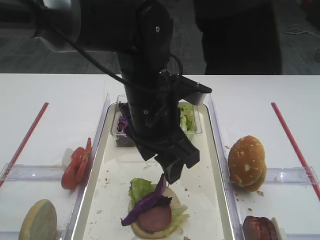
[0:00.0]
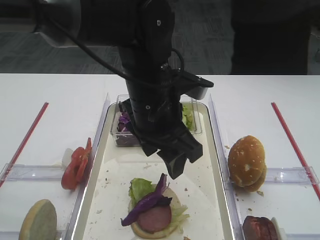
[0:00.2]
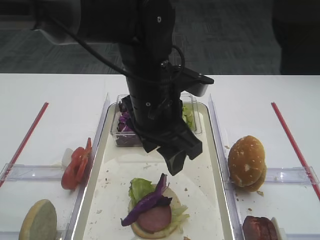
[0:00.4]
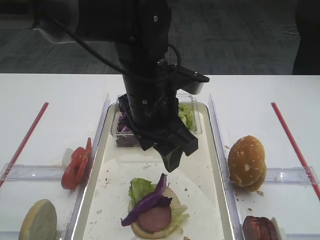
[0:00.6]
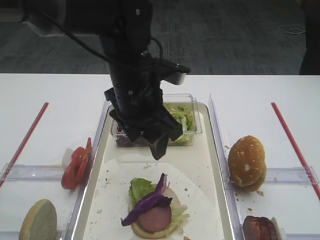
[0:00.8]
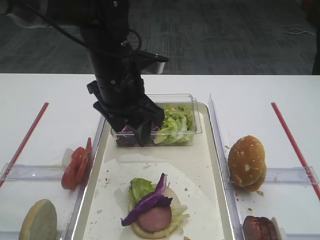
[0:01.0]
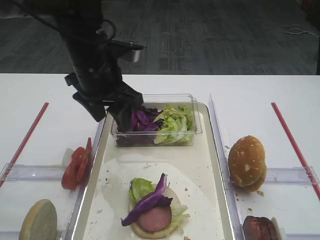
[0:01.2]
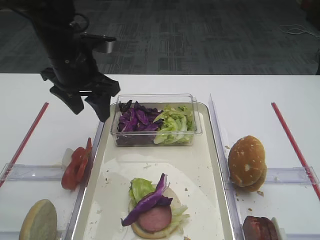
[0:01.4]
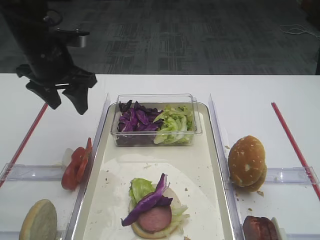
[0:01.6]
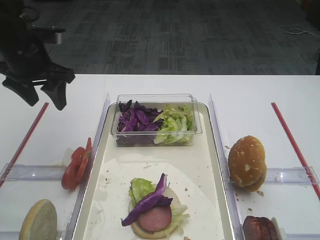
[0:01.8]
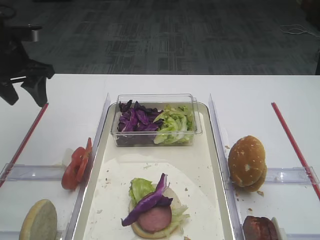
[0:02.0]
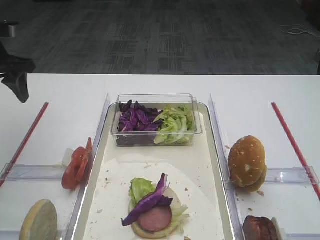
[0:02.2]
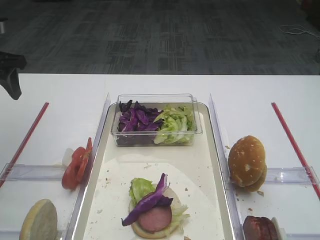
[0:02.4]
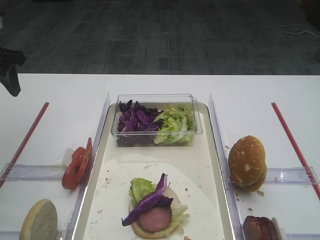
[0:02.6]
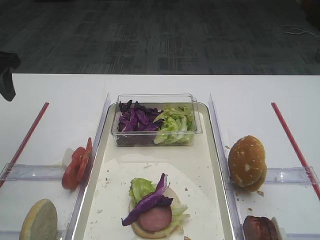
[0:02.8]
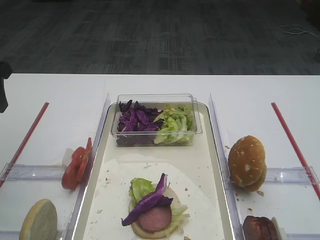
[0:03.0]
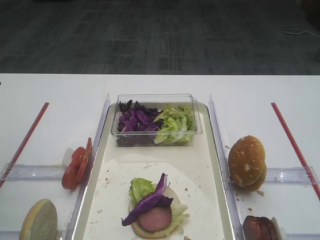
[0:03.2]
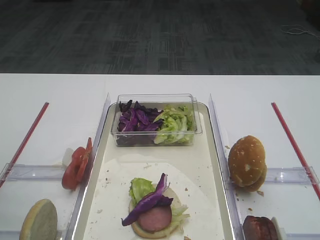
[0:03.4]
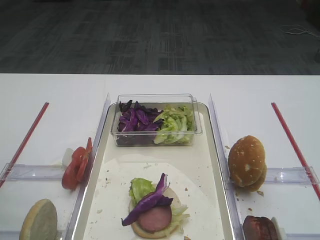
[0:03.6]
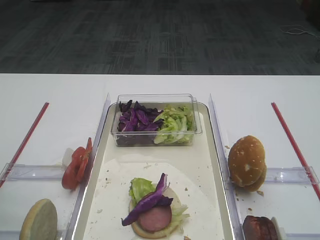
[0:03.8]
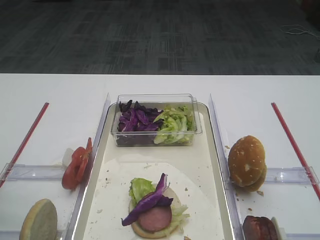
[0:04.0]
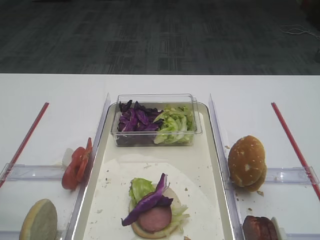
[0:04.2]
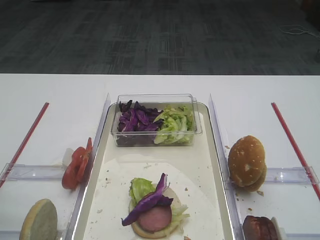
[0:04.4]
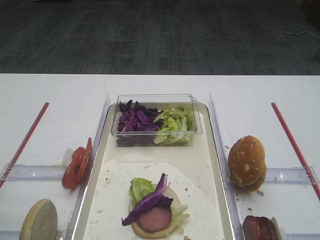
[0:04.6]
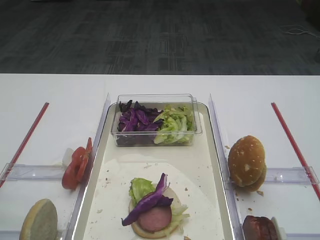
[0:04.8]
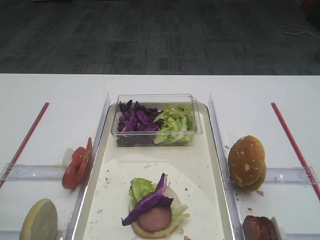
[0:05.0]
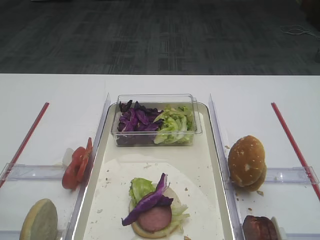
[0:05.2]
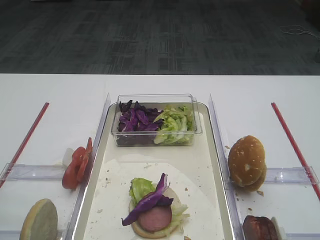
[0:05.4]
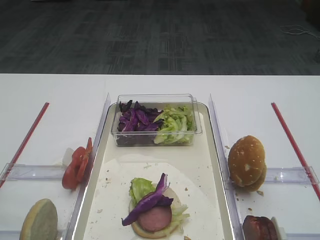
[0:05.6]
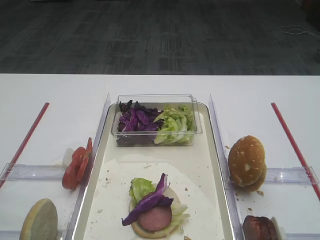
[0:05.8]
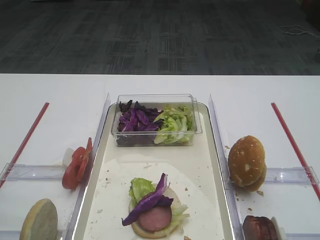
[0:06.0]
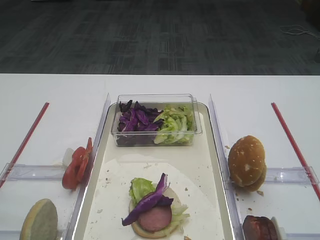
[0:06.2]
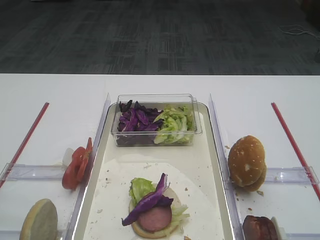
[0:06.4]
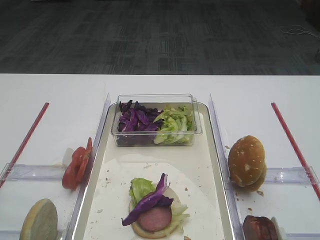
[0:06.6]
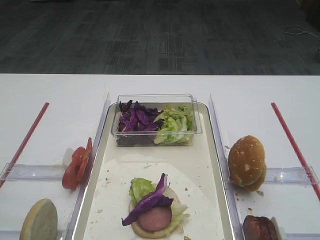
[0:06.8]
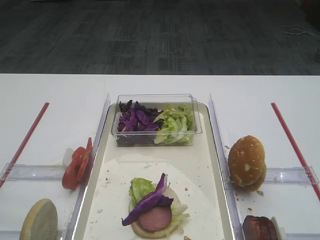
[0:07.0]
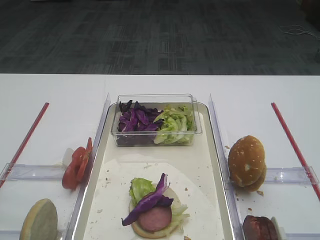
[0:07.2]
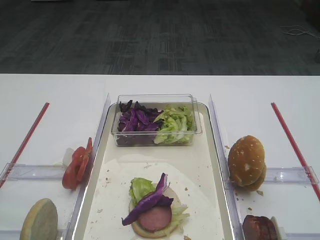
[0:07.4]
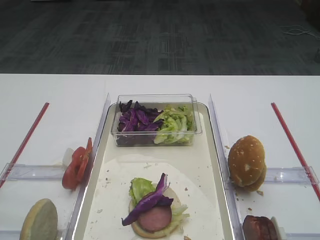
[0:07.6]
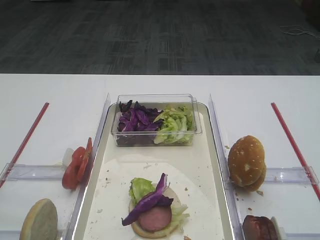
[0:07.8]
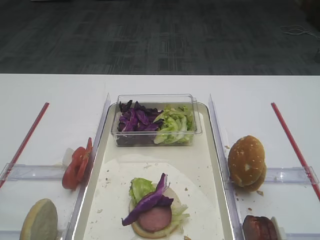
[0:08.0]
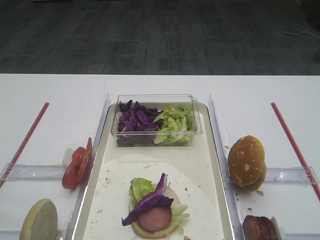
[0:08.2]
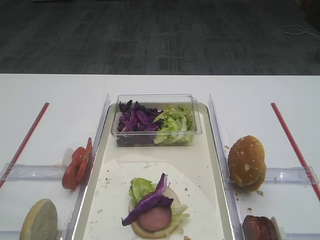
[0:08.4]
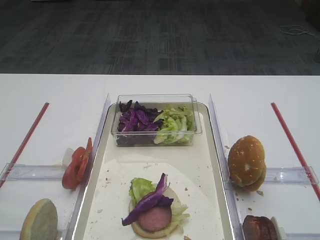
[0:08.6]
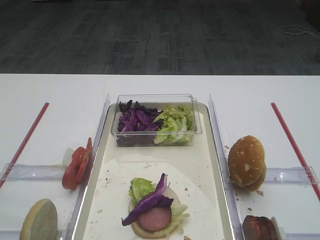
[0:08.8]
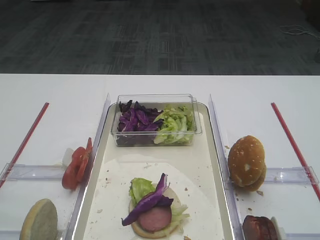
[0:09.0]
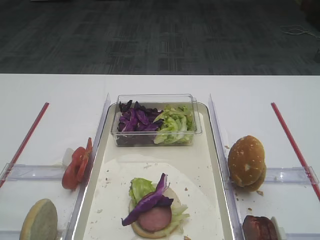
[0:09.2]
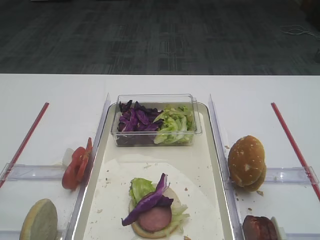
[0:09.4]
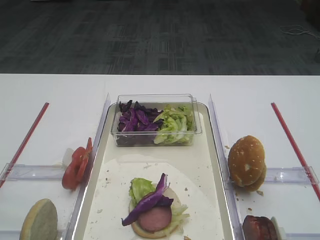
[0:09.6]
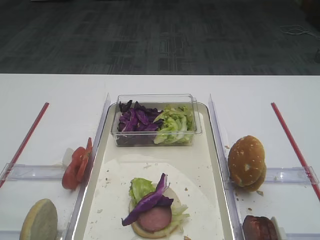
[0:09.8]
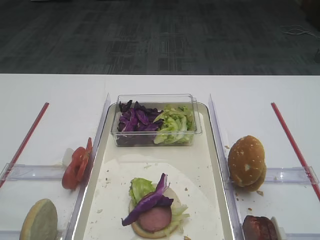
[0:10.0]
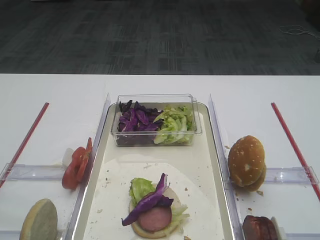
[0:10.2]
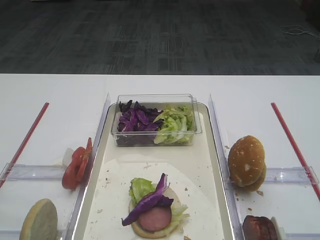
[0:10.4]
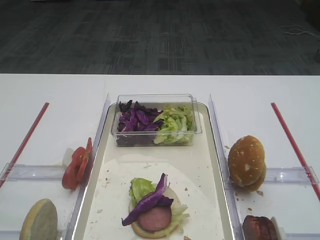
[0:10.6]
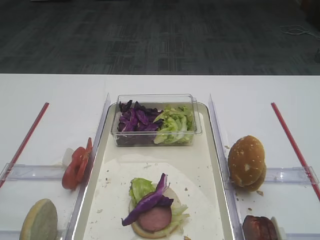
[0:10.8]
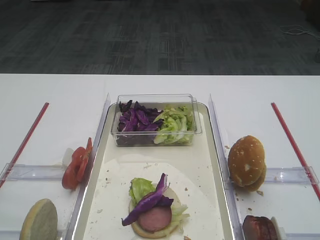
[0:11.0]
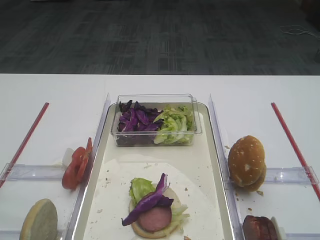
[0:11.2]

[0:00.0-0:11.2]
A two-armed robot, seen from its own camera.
0:00.0 to 0:01.6: The left gripper moves to the left and forward, approximately 20 cm.
0:01.6 to 0:03.2: The left gripper travels to the left and backward by some 15 cm.
0:08.0 to 0:11.2: Both grippers stay put.

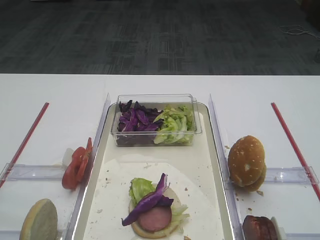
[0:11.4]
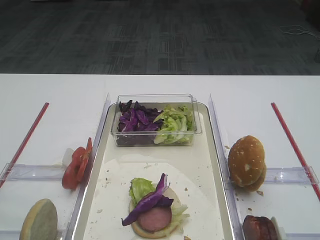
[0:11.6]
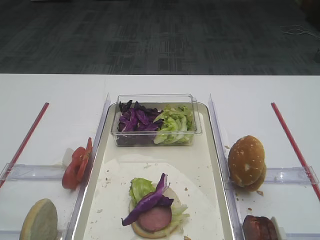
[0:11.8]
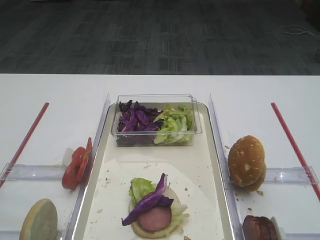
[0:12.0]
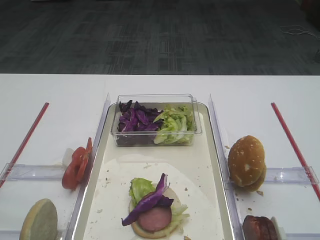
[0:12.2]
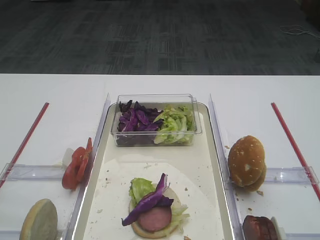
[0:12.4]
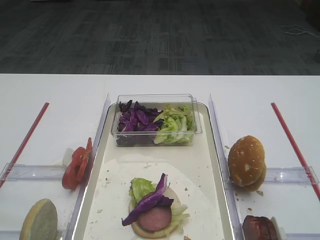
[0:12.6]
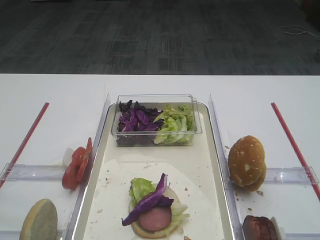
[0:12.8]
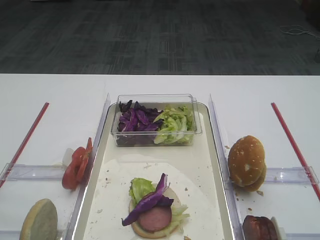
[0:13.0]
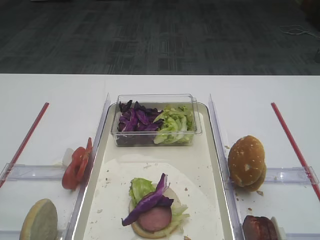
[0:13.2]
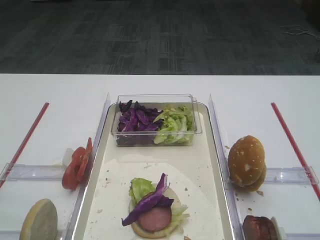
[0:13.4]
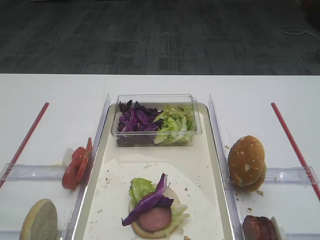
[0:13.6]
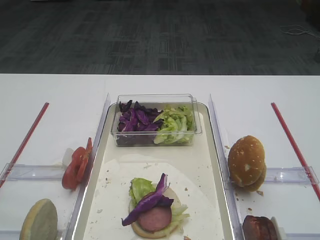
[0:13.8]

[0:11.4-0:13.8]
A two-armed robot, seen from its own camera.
0:11.4 to 0:13.8: The two grippers keep their place.

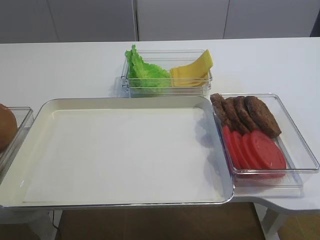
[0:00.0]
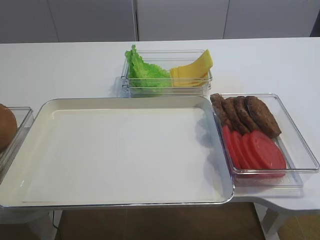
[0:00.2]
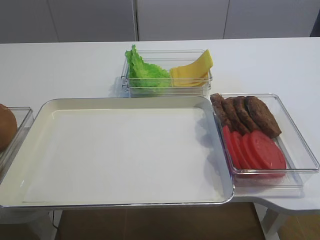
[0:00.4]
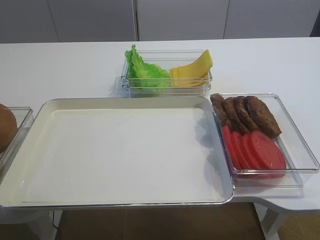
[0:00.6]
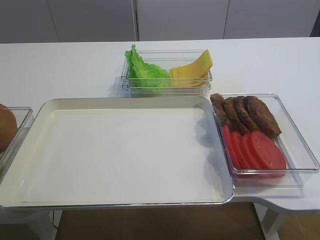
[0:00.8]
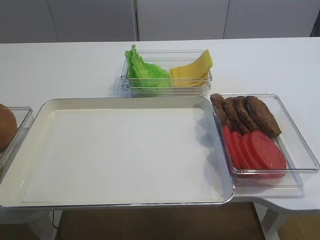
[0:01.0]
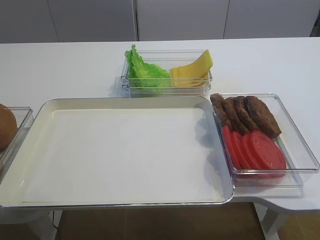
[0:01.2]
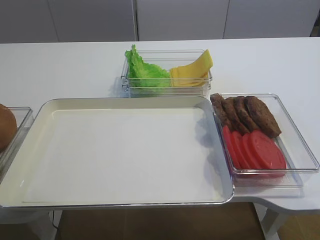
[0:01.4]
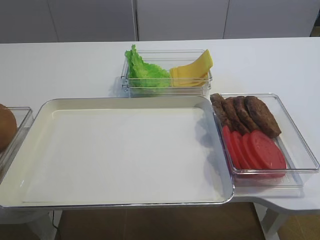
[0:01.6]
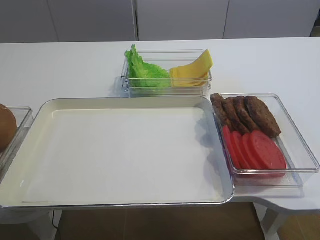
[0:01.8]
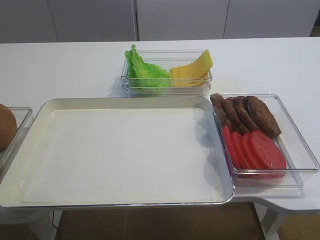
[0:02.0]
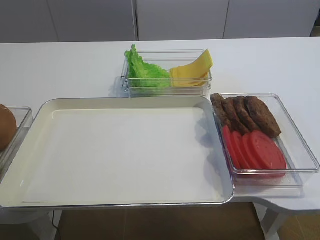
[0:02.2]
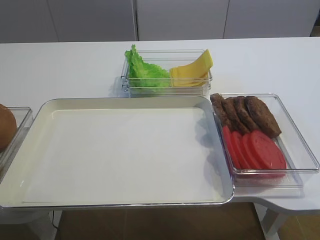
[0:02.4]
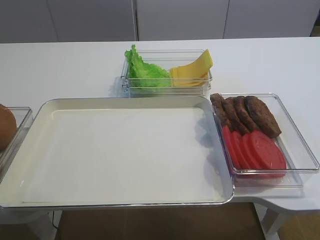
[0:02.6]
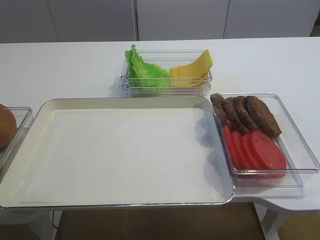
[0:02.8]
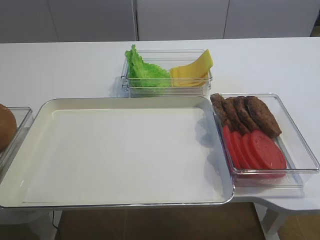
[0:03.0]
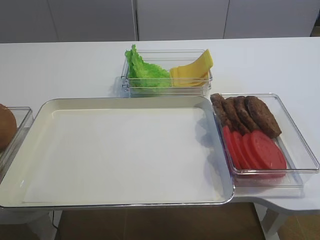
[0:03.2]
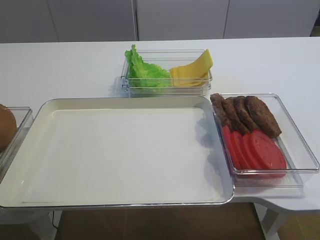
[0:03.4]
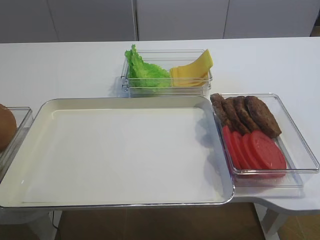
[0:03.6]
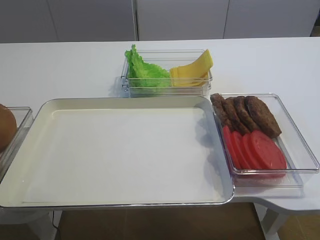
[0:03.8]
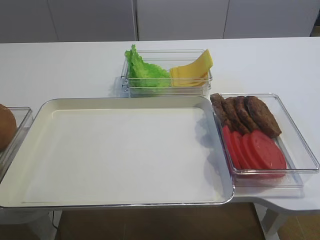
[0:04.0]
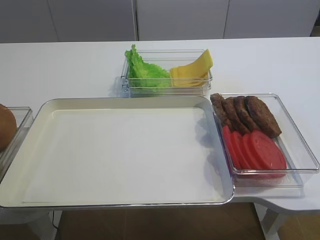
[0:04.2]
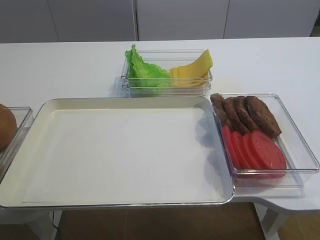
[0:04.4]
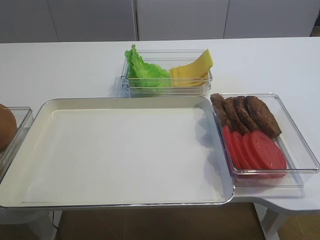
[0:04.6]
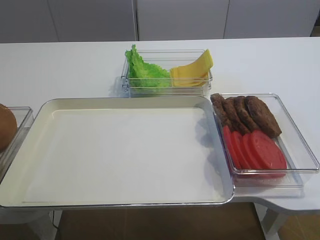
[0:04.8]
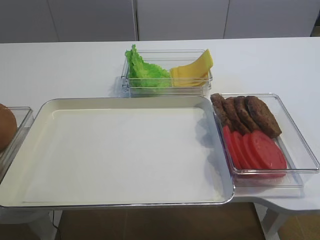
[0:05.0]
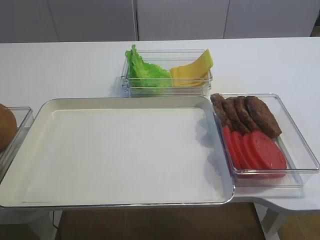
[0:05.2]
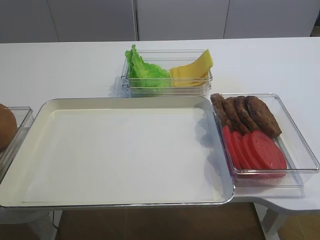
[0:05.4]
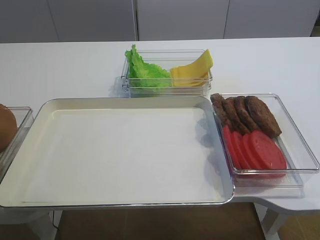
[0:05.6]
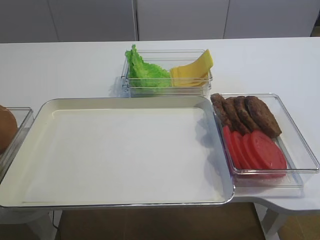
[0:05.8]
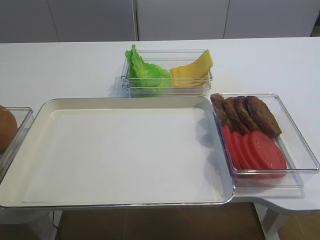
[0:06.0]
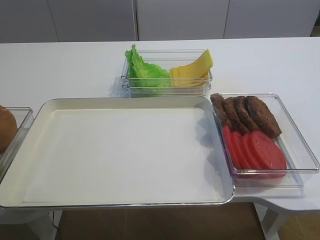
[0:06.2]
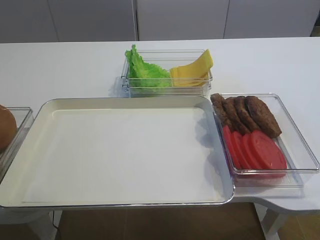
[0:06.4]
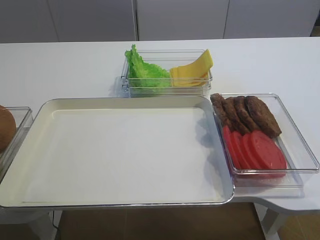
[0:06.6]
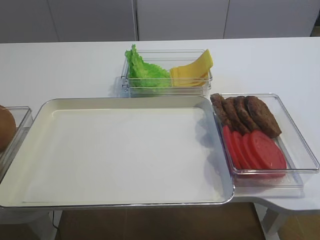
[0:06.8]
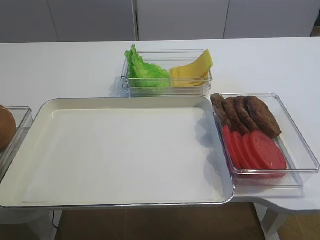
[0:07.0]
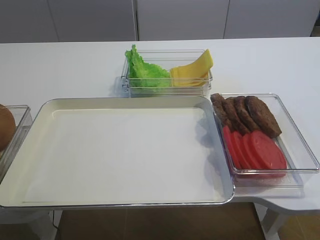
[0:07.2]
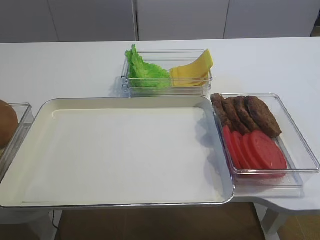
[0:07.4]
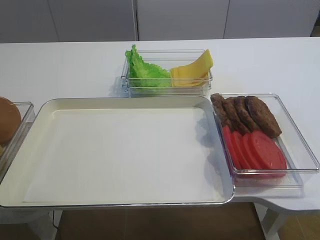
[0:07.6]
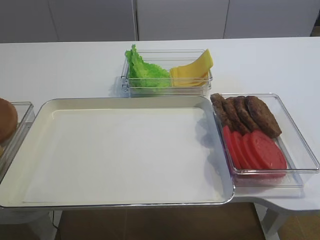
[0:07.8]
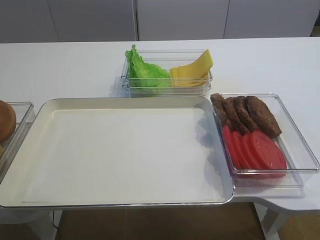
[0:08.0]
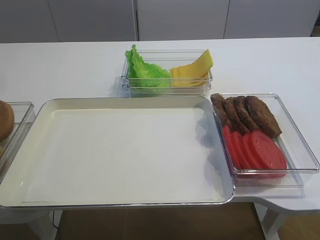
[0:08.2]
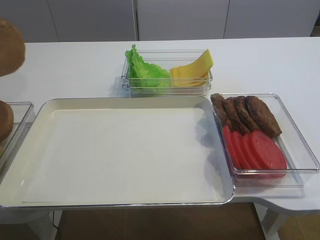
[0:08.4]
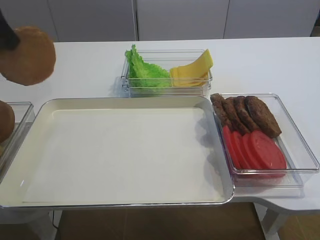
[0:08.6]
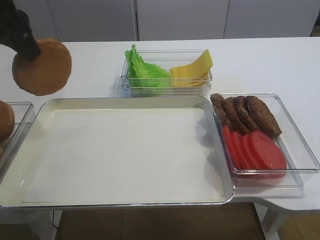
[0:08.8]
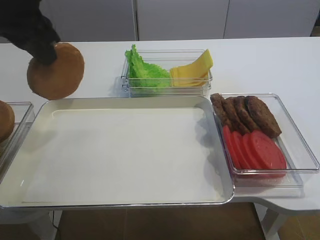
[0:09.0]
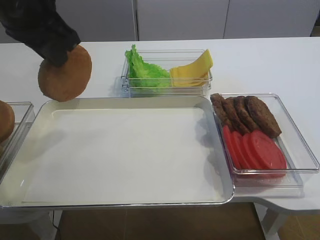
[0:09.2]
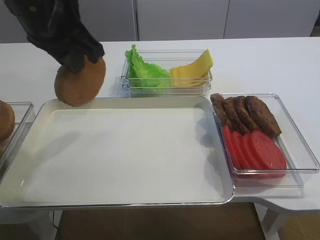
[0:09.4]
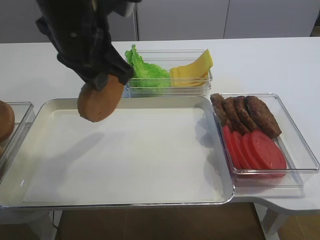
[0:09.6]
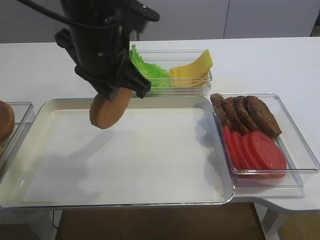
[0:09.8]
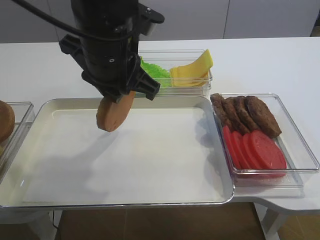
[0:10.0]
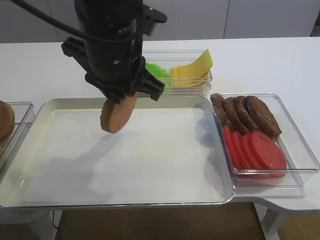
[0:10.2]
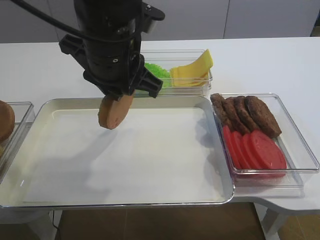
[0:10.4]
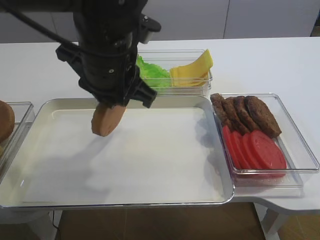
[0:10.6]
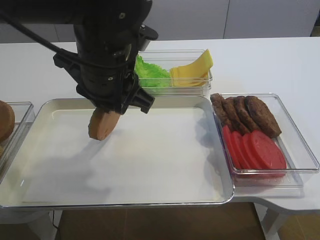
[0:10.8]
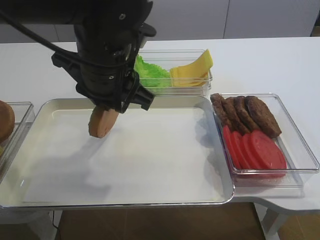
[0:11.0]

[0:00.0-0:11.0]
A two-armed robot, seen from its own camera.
0:07.8 to 0:09.4: The left gripper moves to the right, roughly 25 cm.
0:09.4 to 0:11.0: The left gripper heads to the right and downward, covering some 10 cm.
